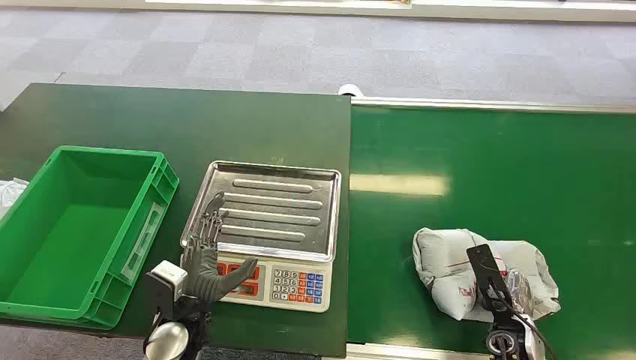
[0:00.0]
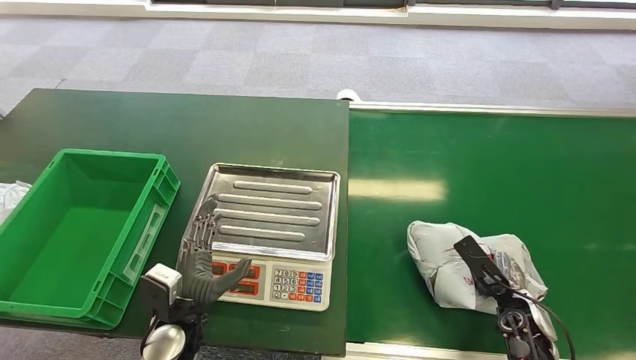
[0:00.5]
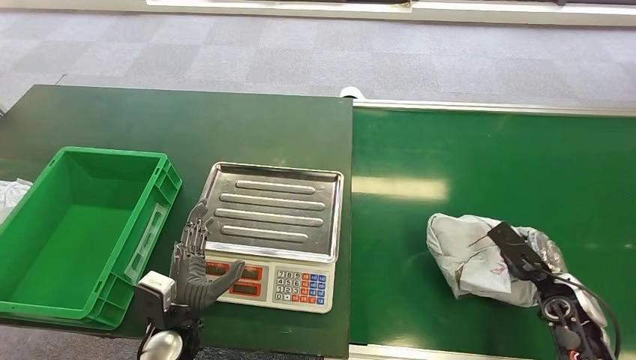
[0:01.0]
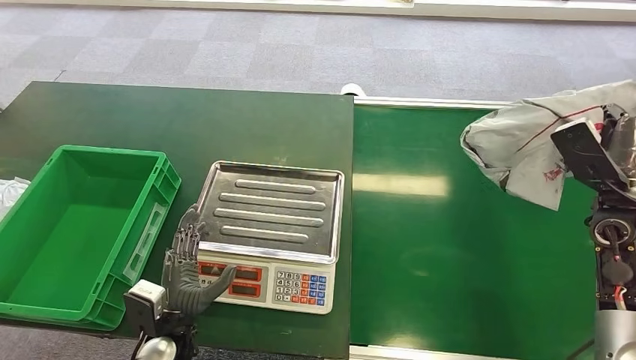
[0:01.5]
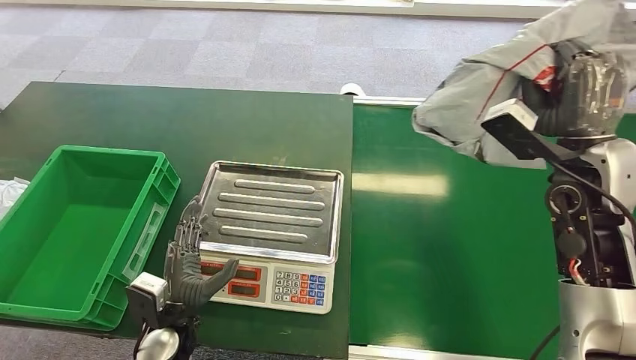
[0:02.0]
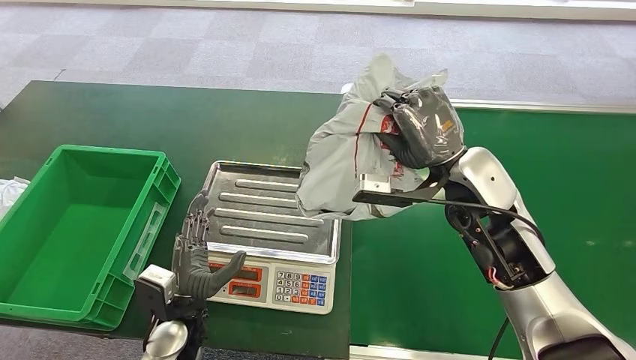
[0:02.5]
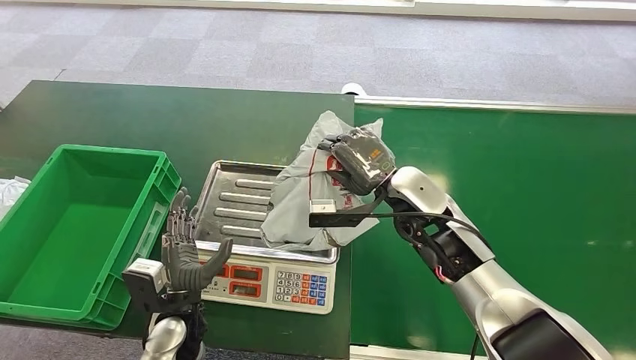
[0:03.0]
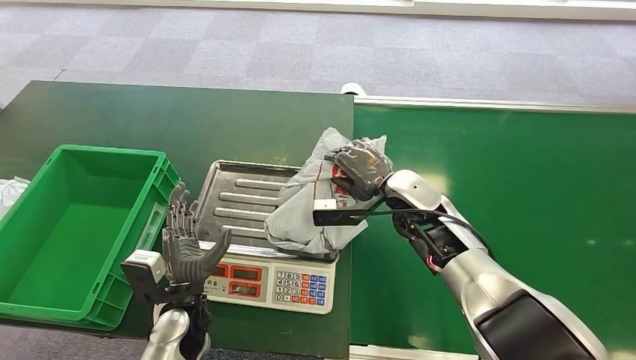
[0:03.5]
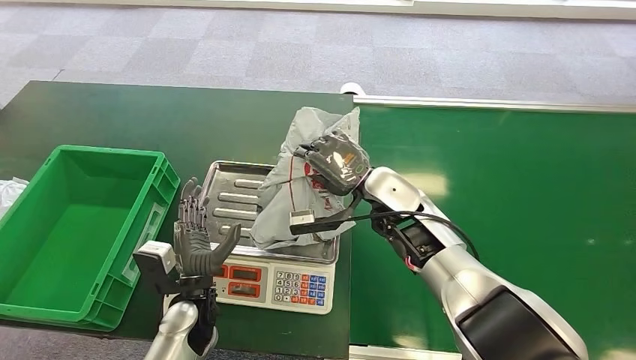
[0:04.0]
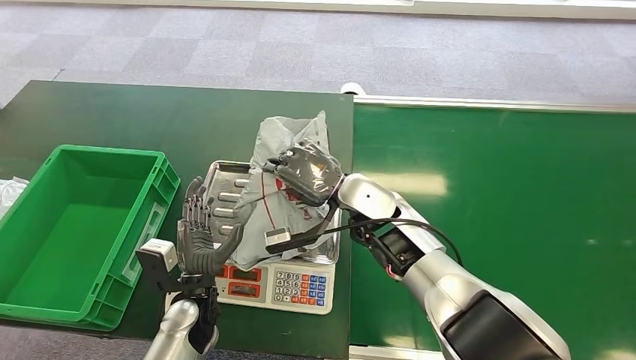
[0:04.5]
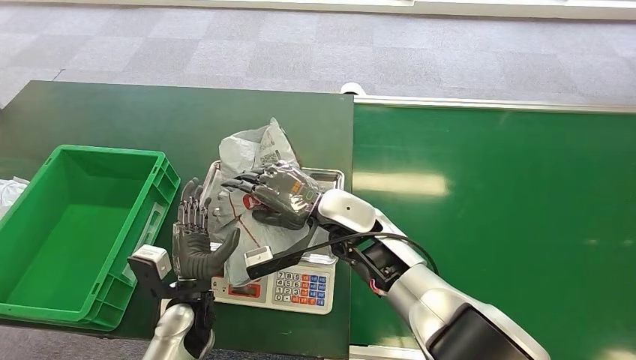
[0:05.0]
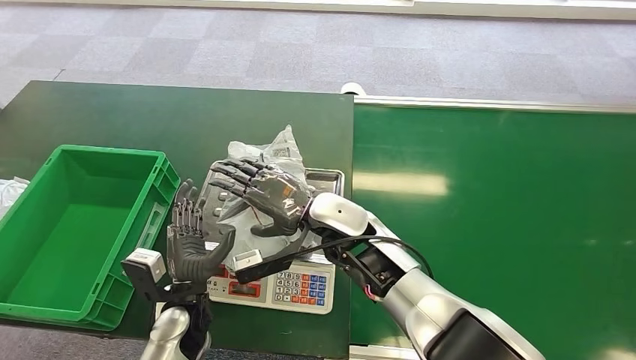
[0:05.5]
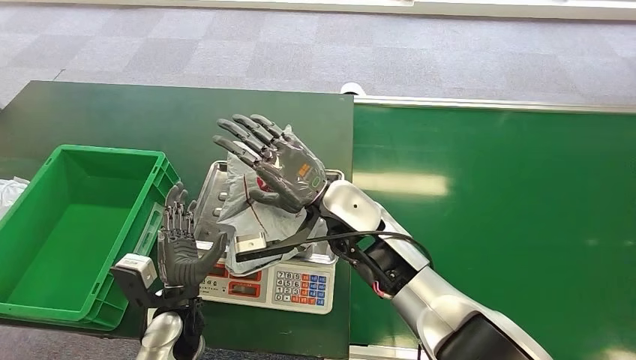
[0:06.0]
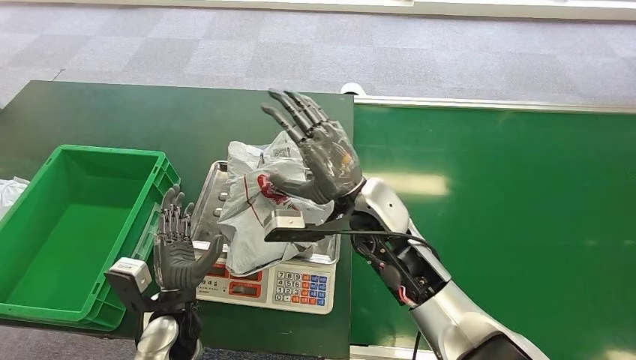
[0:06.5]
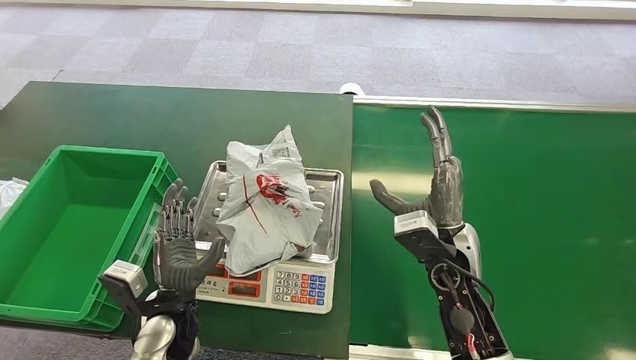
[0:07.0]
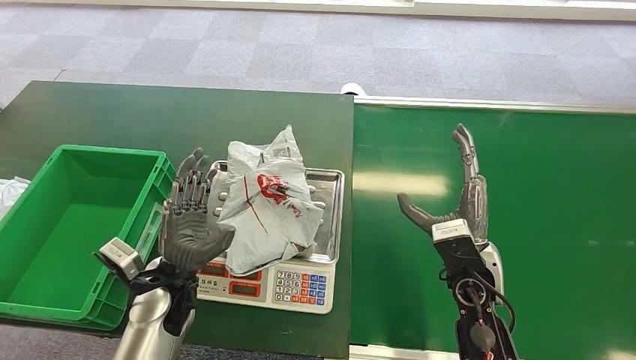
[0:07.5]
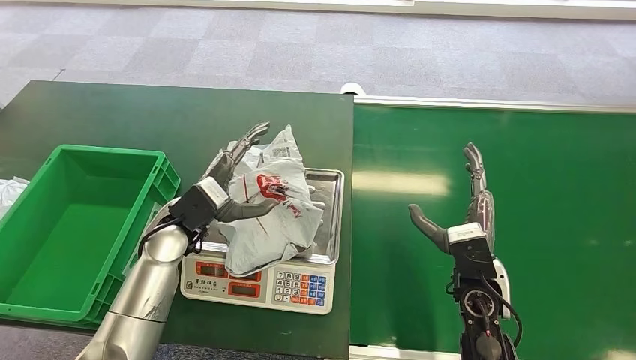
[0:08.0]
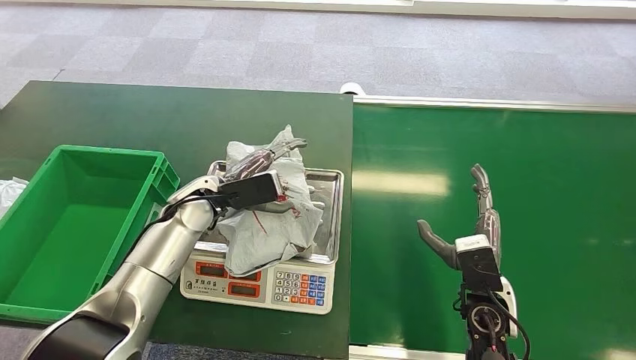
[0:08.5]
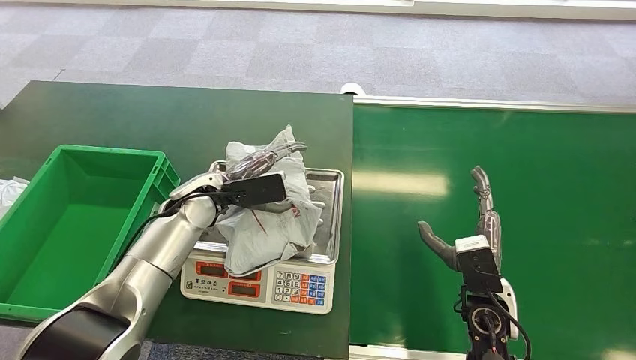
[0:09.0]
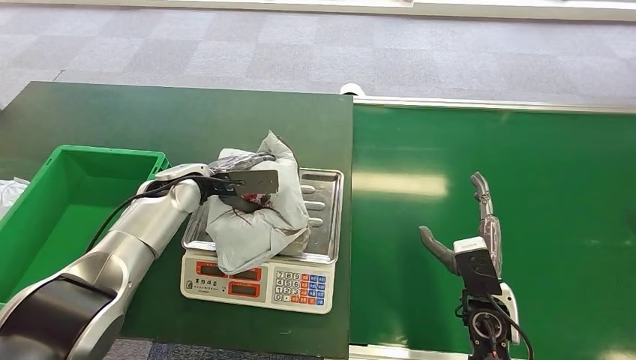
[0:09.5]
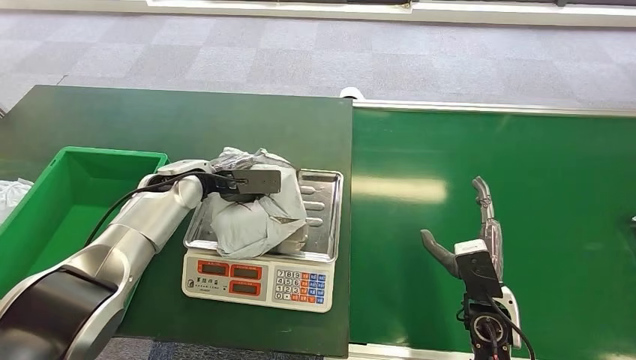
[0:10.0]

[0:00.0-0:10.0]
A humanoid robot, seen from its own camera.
Step, 0:00.0 to 0:01.0: Pick up the package from the conveyor belt.
Step, 0:02.5 to 0:05.0: Place the package onto the inbound machine.
0:04.0 to 0:06.0: The right hand travels to the left and backward by roughly 10 cm.
0:06.0 to 0:08.0: The left hand moves forward and upward, about 15 cm. Meanwhile the right hand shifts roughly 20 cm to the right and downward.

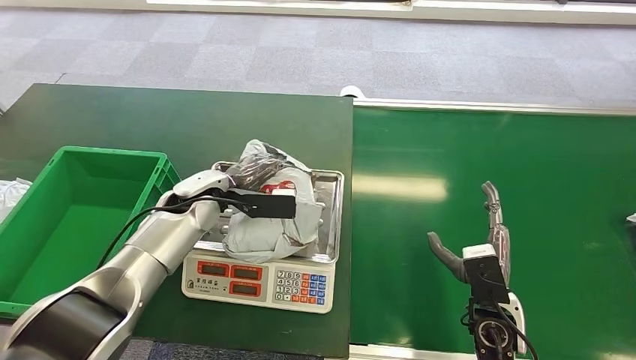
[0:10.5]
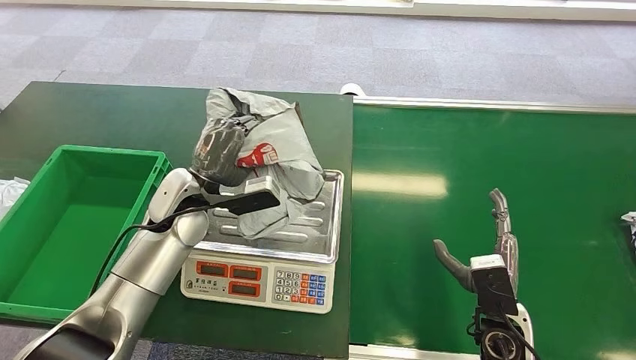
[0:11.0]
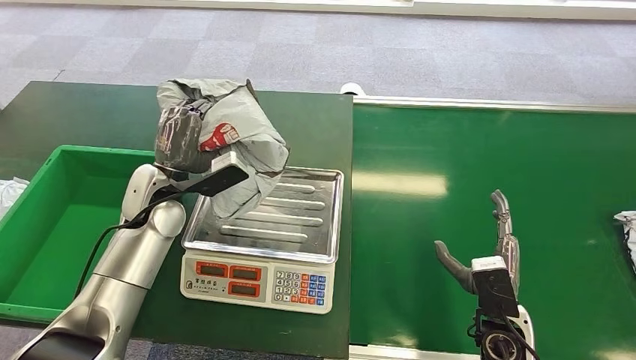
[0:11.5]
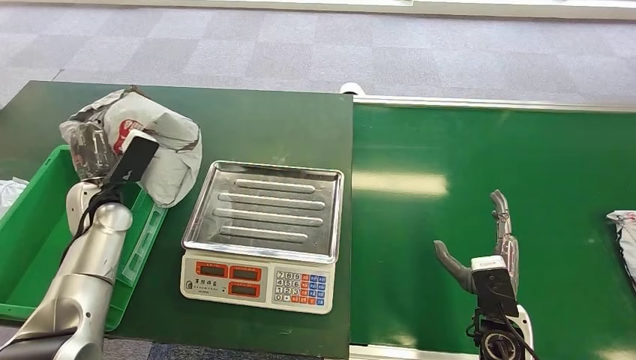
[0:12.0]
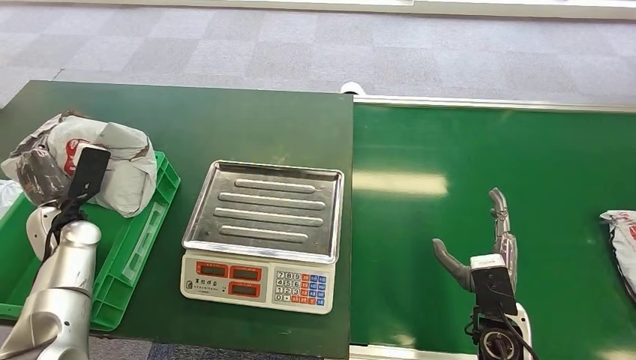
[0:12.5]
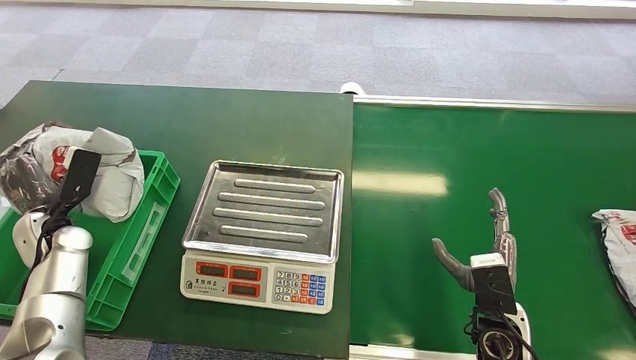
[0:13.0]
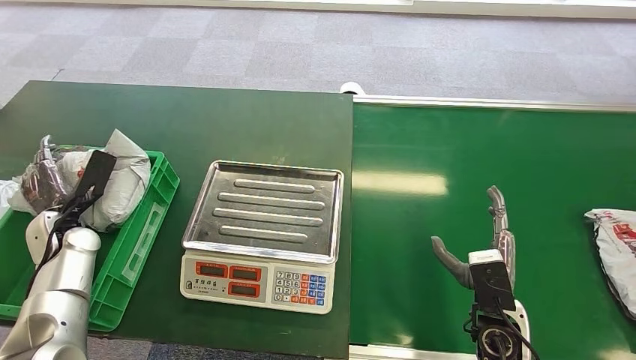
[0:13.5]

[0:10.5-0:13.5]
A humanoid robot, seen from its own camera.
Step, 0:12.5 to 0:13.5: Place the package into the parcel locker.
0:12.0 to 0:13.5: The left hand travels to the left by some 5 cm.

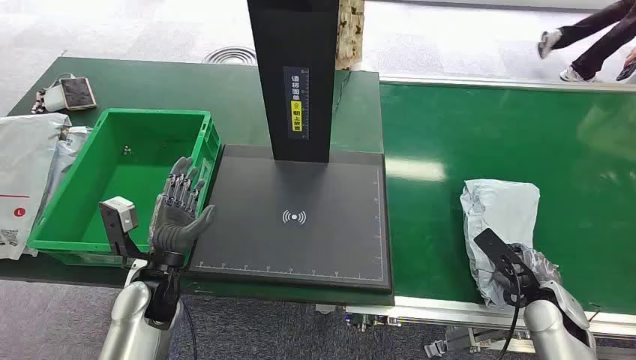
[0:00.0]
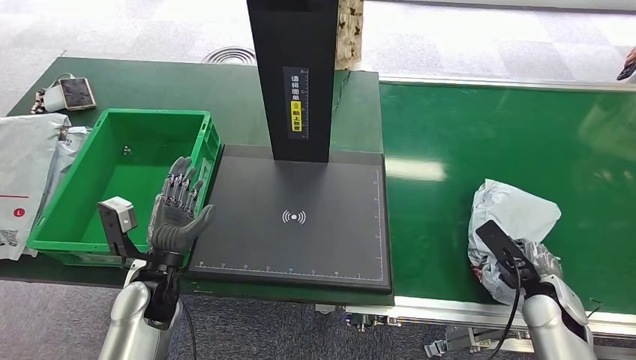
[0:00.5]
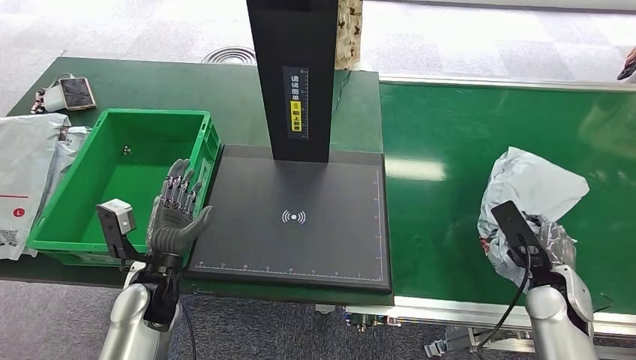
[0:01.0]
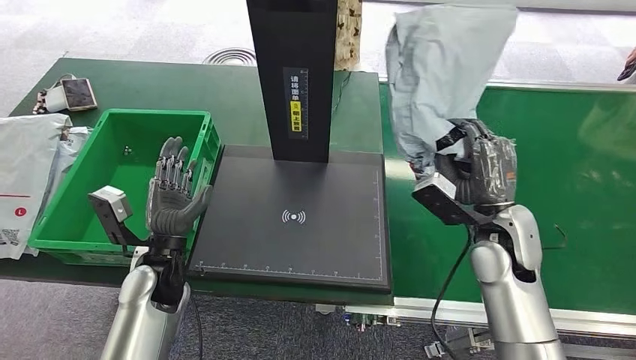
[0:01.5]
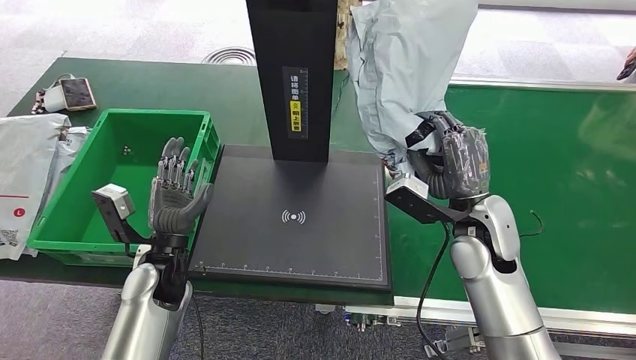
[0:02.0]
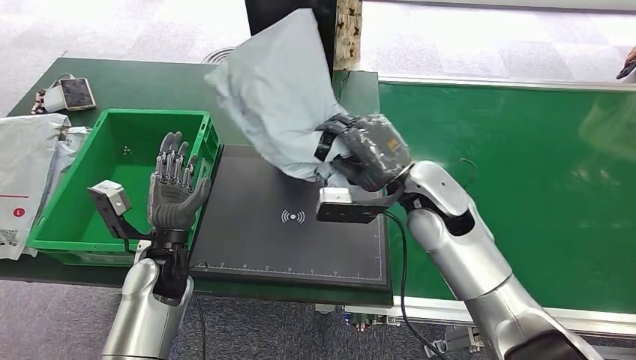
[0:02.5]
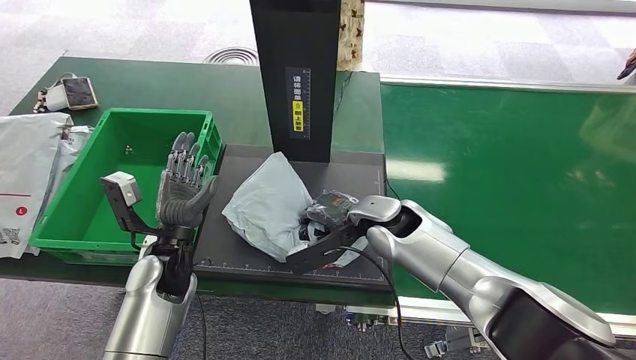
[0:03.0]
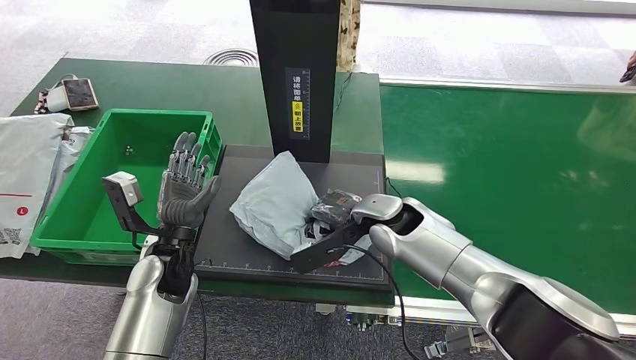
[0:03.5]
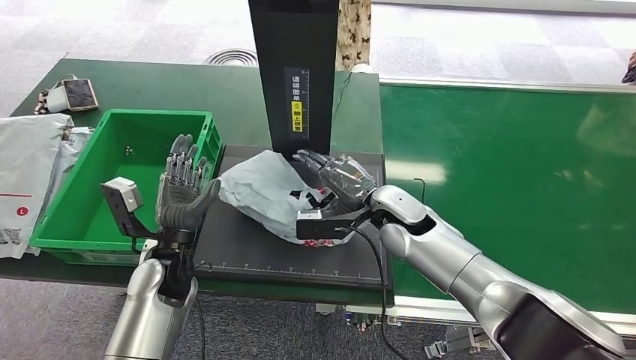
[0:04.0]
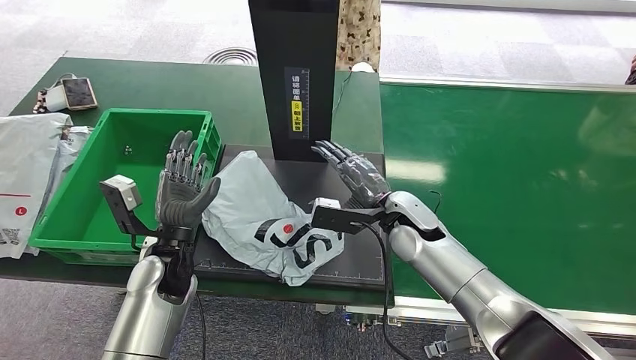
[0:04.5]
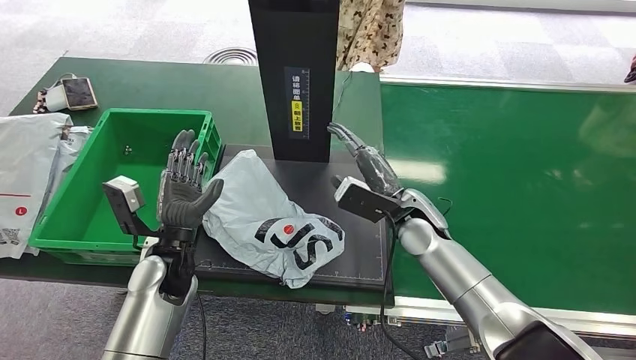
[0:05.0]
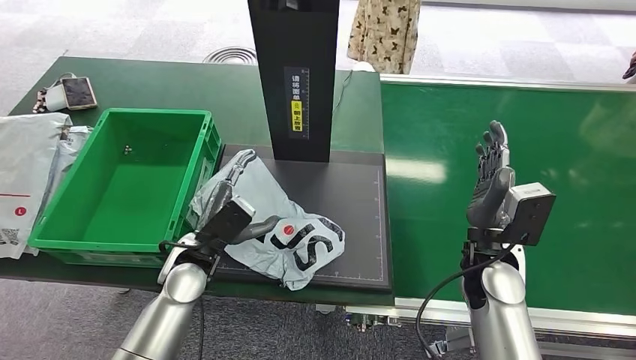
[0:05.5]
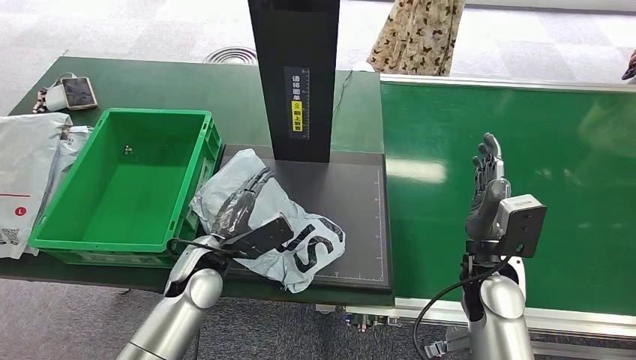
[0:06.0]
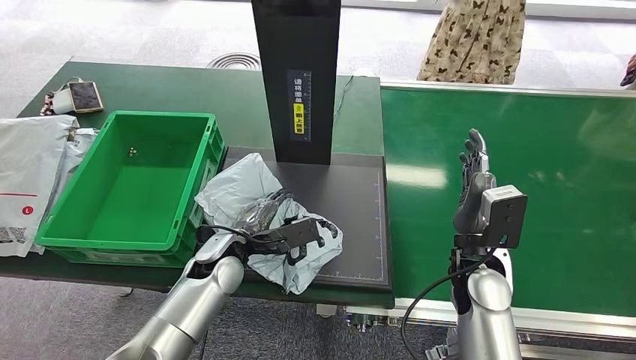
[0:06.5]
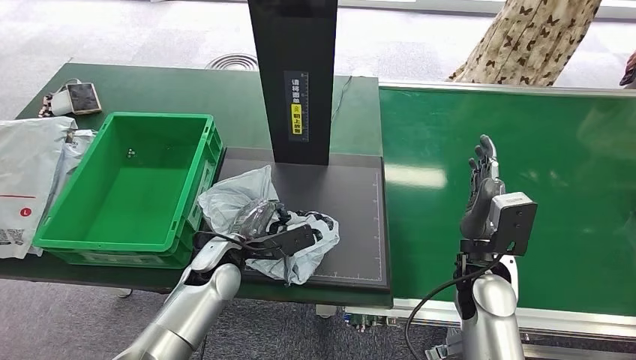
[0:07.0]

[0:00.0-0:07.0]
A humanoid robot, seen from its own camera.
Step, 0:00.0 to 0:01.0: Pick up the package from the conveyor belt.
Step, 0:01.5 to 0:05.0: Place the package onto the inbound machine.
